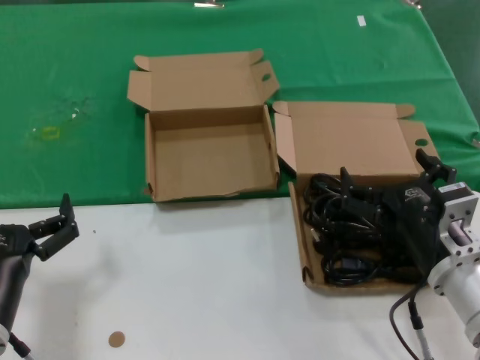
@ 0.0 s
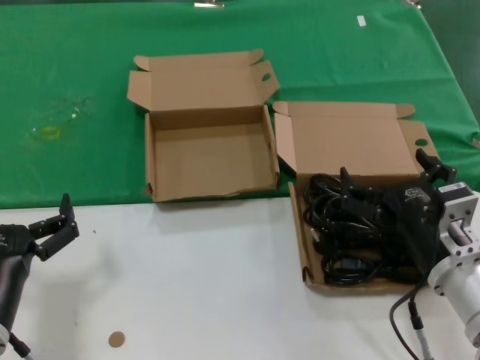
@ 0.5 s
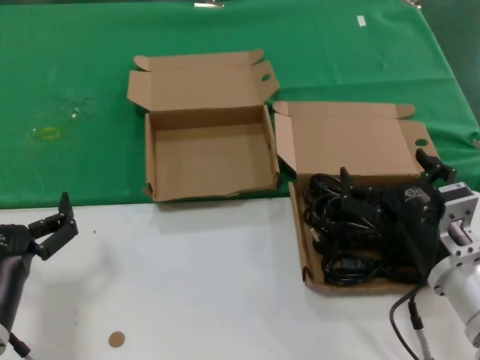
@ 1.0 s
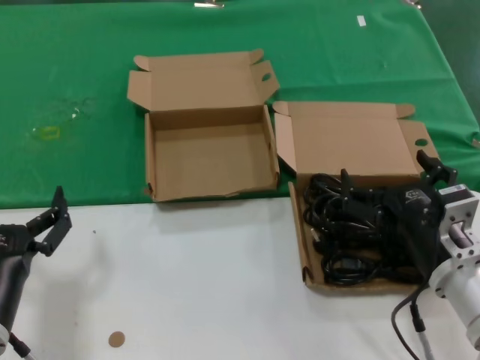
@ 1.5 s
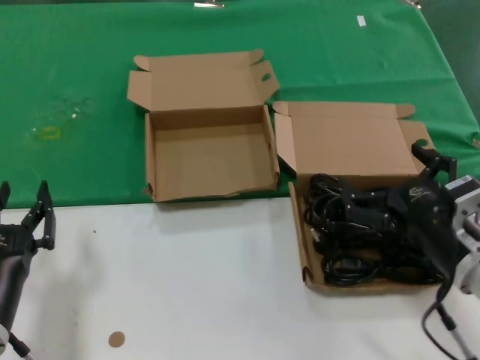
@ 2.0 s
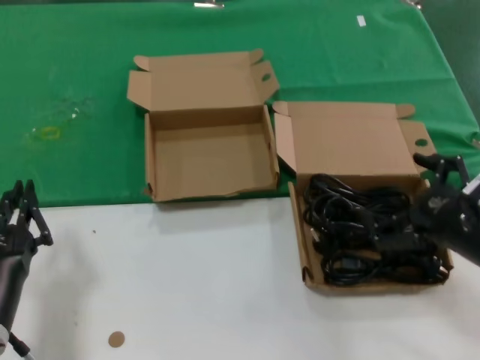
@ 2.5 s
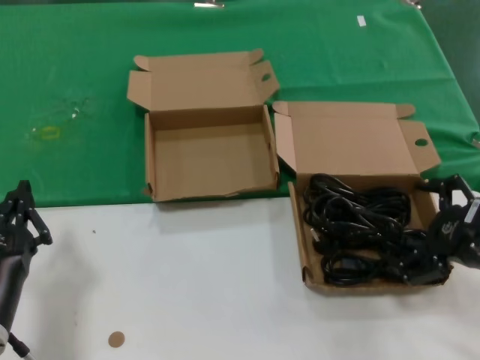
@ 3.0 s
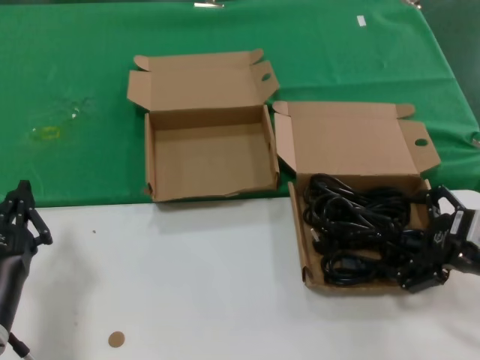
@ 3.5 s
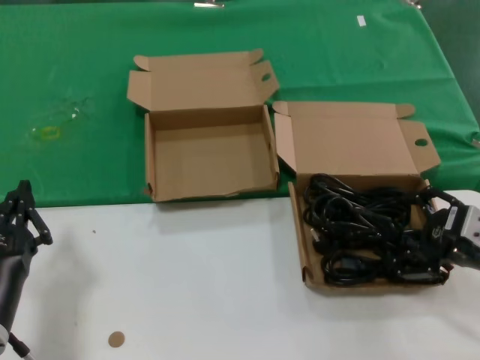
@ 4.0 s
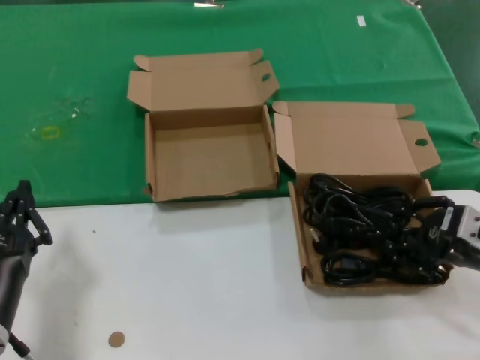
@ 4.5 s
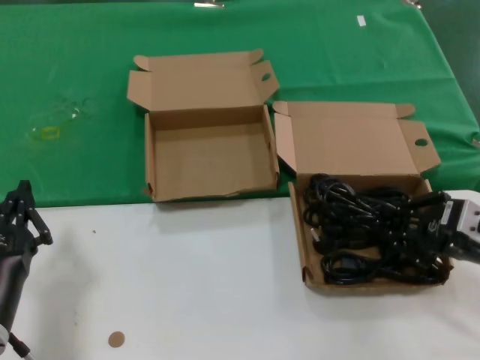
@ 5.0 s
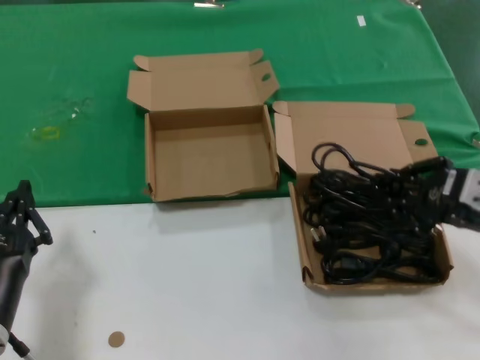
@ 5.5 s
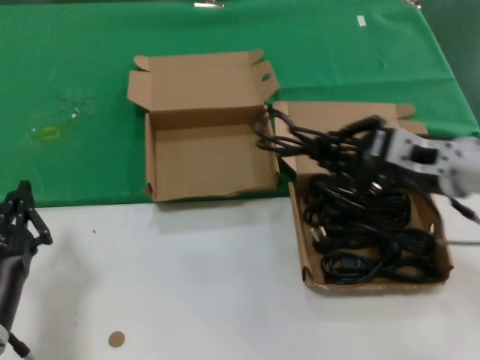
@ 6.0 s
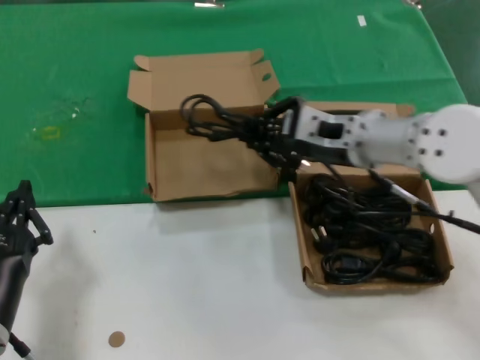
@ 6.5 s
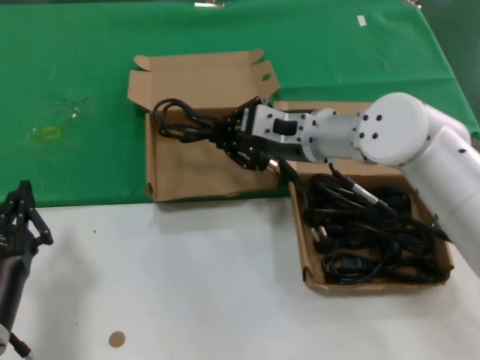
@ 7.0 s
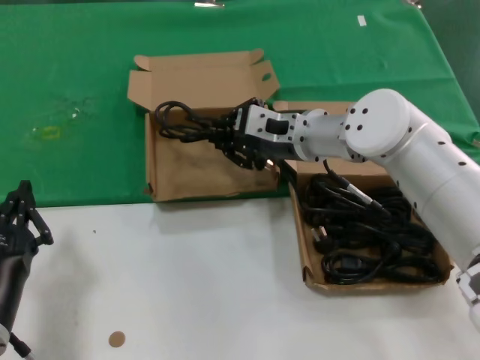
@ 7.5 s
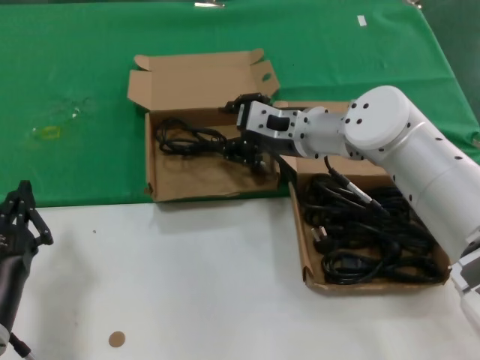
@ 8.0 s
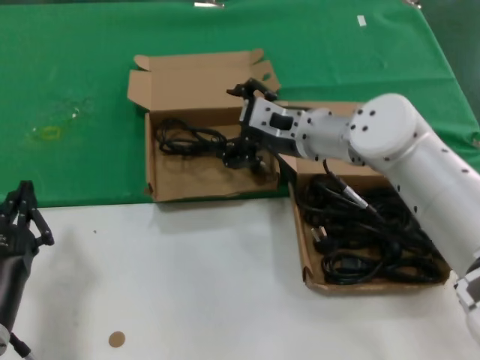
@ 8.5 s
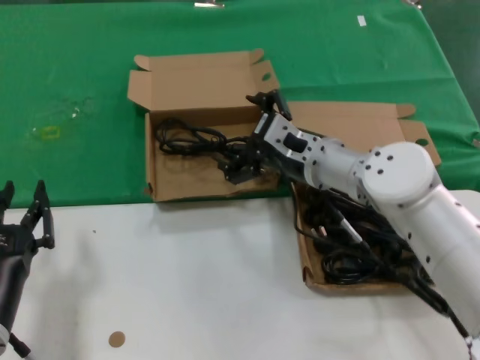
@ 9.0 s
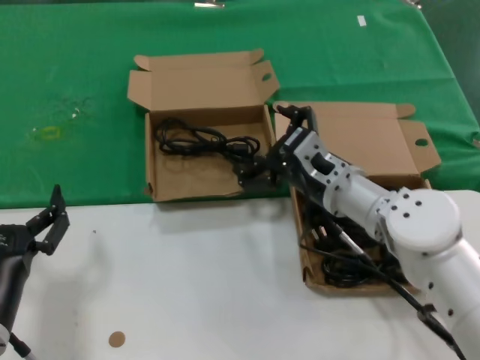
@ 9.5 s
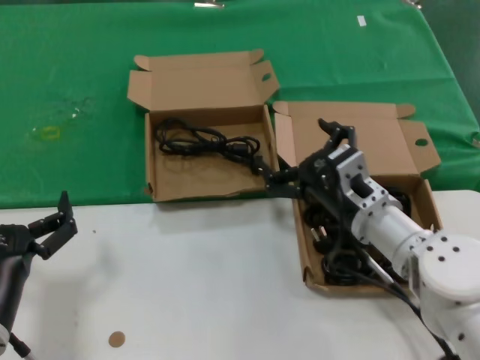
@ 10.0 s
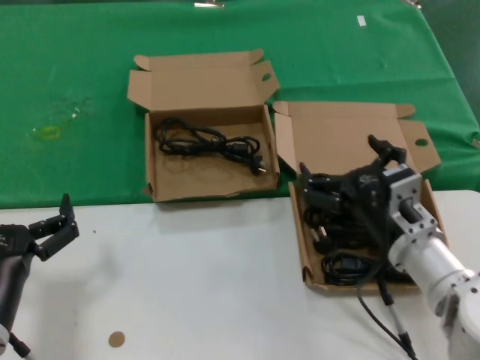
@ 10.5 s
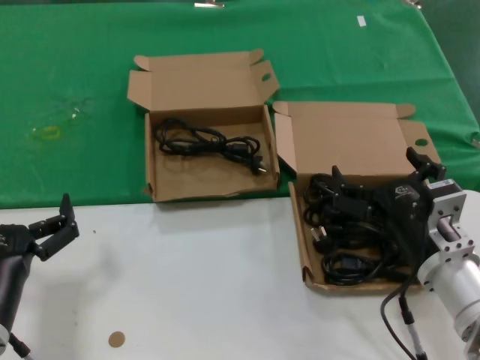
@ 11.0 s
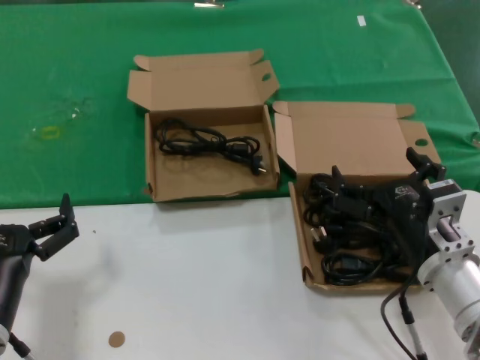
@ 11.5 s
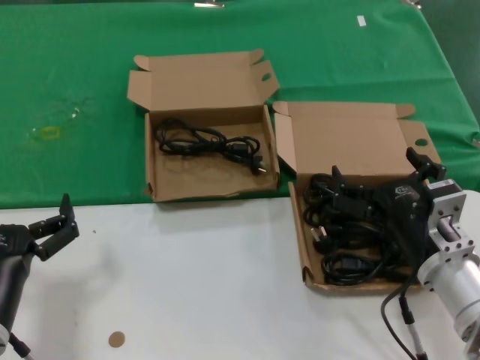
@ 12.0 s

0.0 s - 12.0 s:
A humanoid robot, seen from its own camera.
Task of the whole recording: take the parts from the box containing them and put them into an empty box.
Step, 0.0 s - 4.5 s: Grasp the data cable.
Step, 5.0 s - 8.0 s: Place the data cable in the another box.
0.0 s - 2.0 s: The hands move only a little.
2.0 s - 4.0 s: The right hand goes about 10 cm to the right.
4.0 s - 6.0 s: The right hand shifts some 15 cm upward, to the left and forward.
6.0 s - 8.0 s: The right hand heads to the left and forward, covering roughly 20 cm.
8.0 s - 10.0 s: The right hand moves backward, downward and to the right, approximately 15 cm.
10.0 s - 12.0 s: The right hand shifts some 10 cm backward.

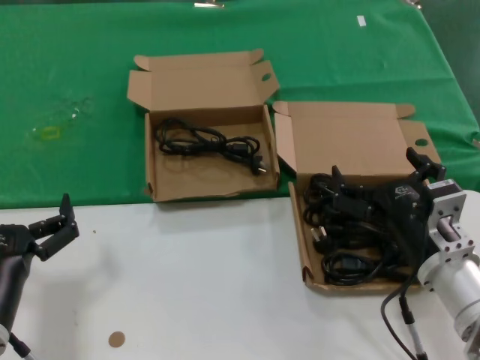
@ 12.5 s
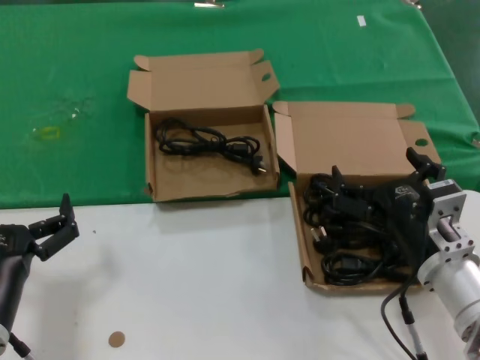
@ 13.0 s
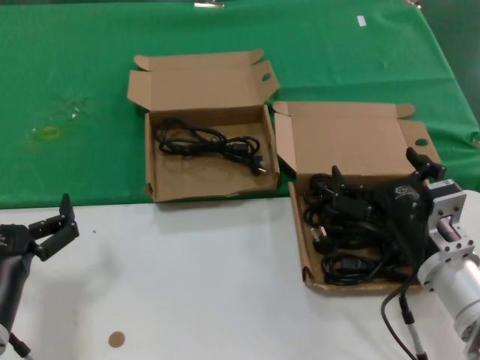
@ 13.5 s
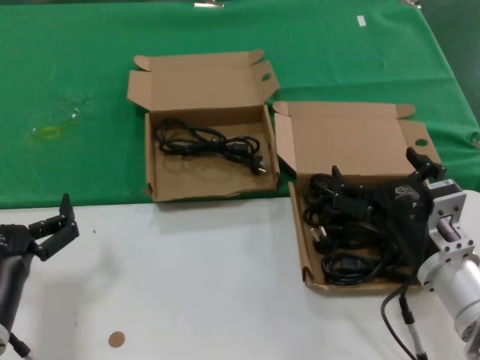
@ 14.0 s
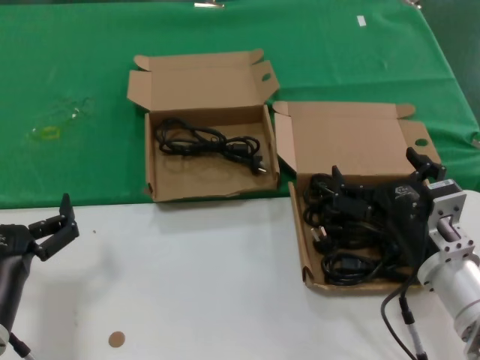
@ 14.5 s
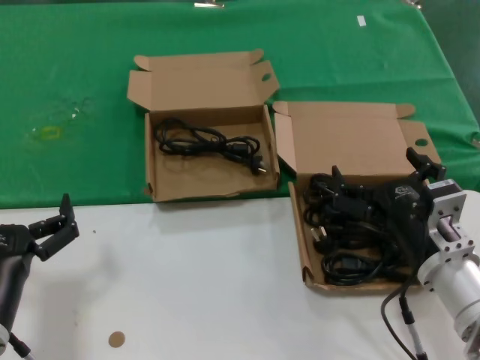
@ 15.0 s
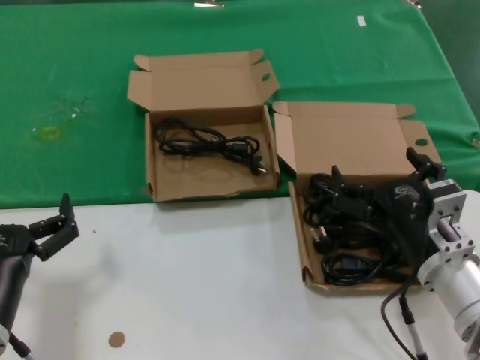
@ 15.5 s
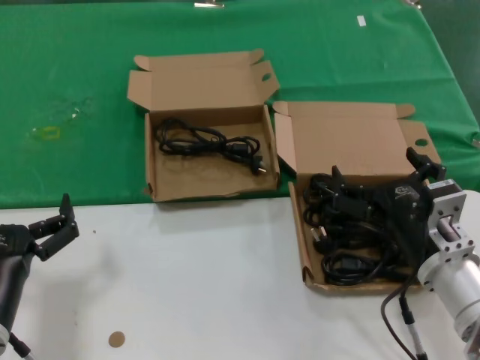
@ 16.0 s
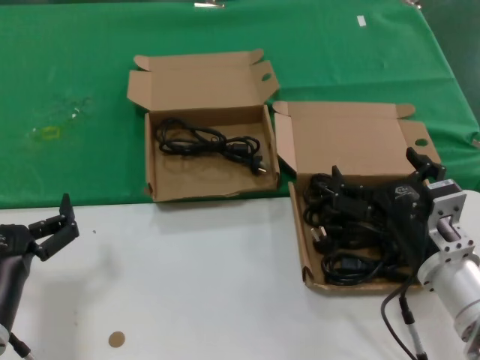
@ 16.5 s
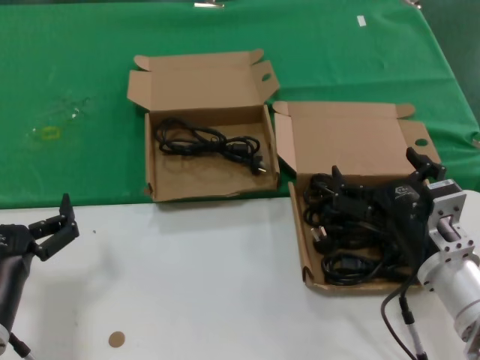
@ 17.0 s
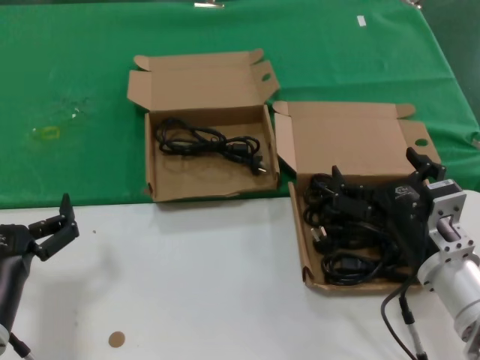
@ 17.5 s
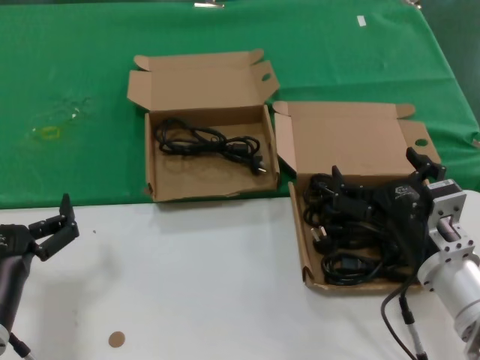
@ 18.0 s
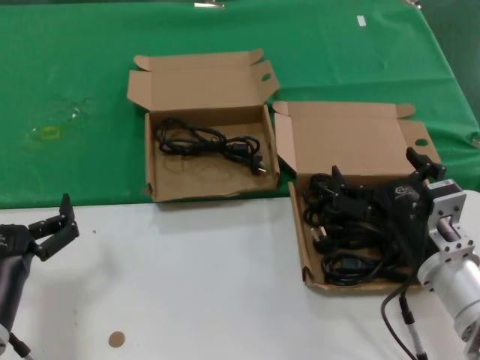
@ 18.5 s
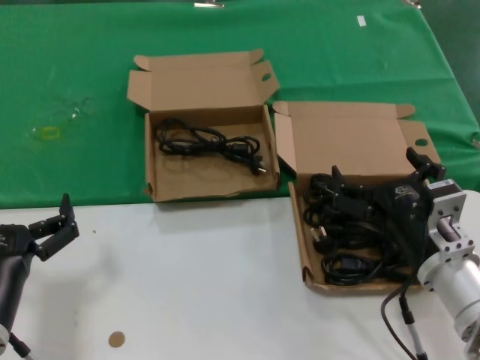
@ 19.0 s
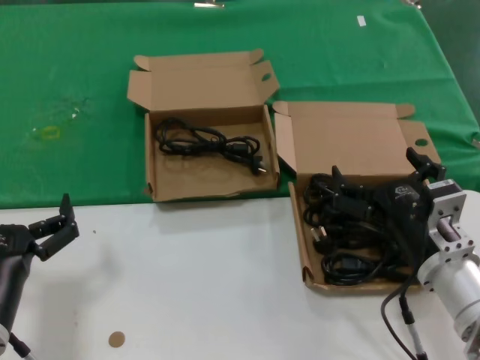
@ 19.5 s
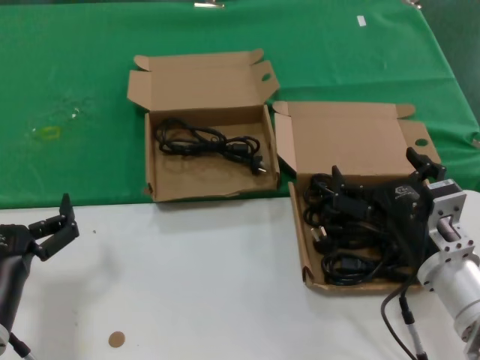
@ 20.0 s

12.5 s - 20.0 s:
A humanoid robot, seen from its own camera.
Task of the whole recording: take the parts from the box containing them and put them into an empty box.
12.5 s - 20.0 s: Both hands stay about where they are.

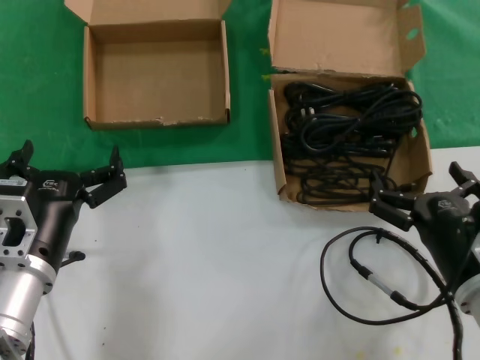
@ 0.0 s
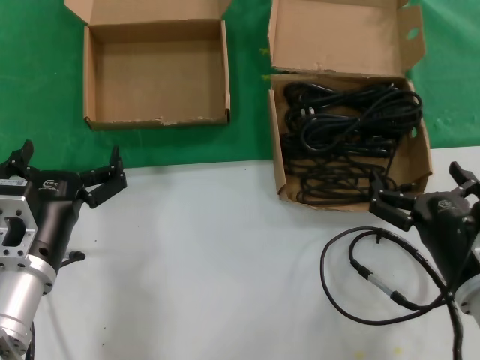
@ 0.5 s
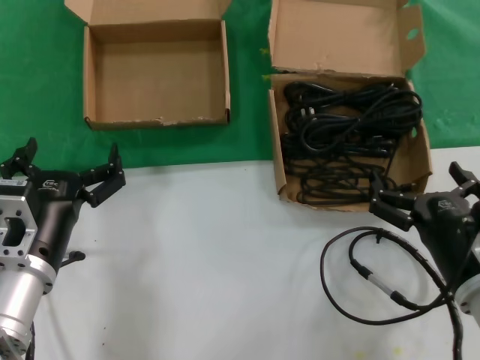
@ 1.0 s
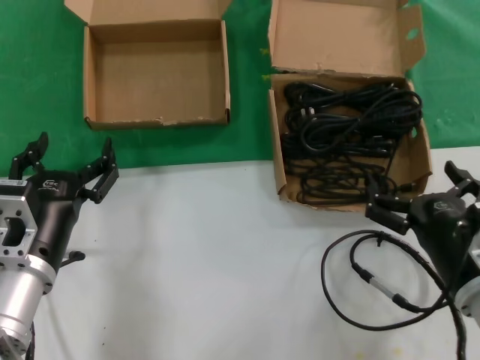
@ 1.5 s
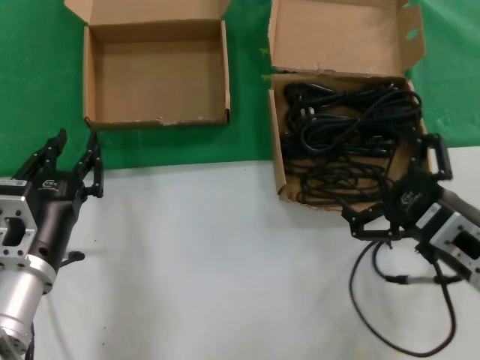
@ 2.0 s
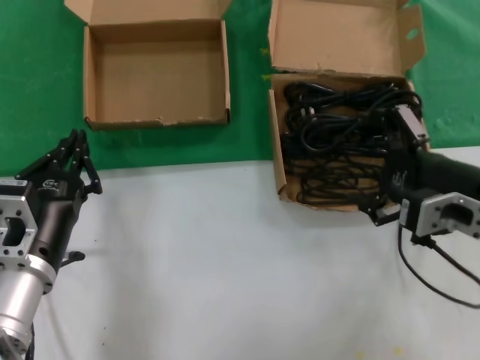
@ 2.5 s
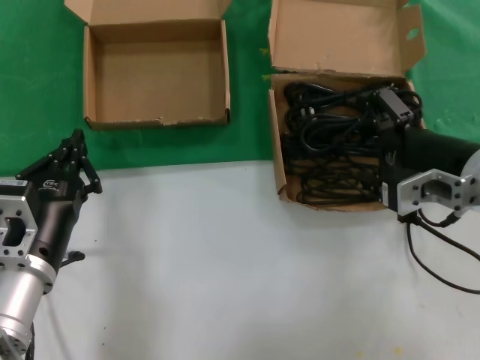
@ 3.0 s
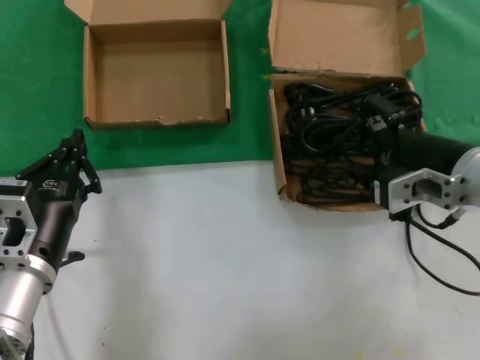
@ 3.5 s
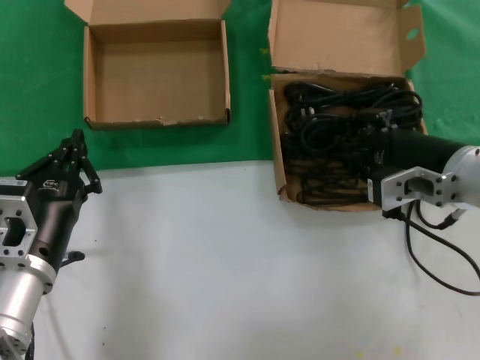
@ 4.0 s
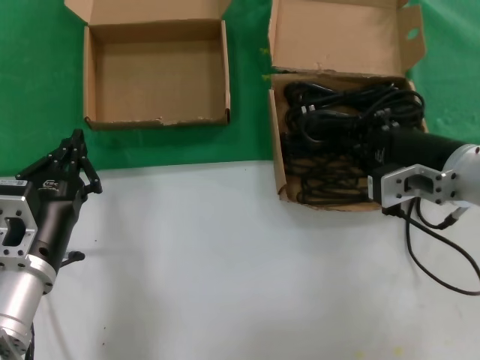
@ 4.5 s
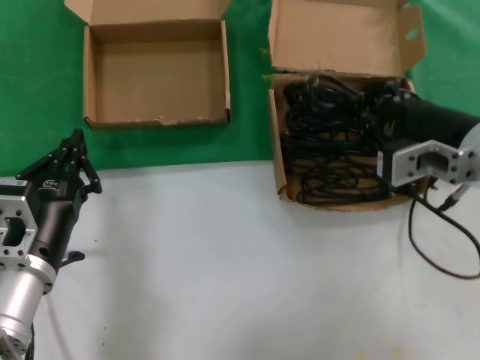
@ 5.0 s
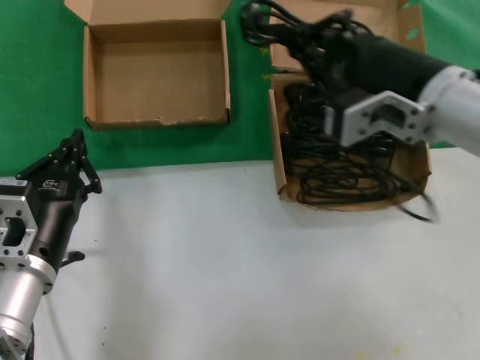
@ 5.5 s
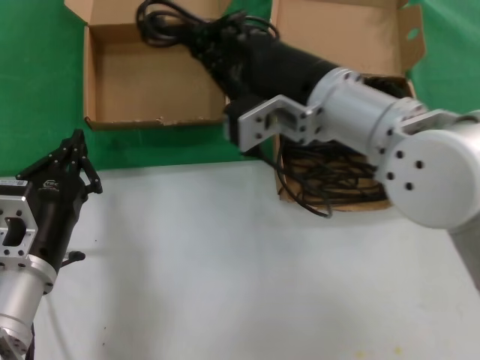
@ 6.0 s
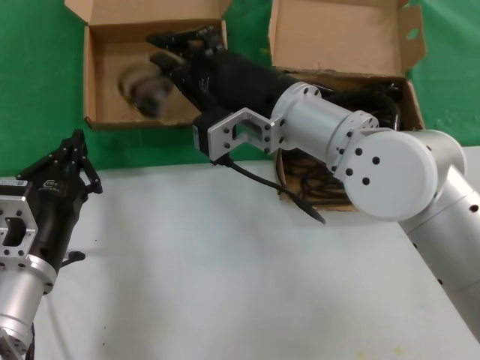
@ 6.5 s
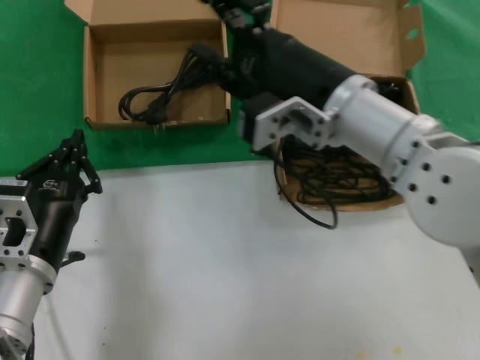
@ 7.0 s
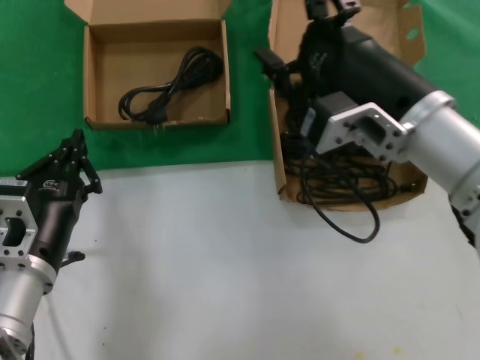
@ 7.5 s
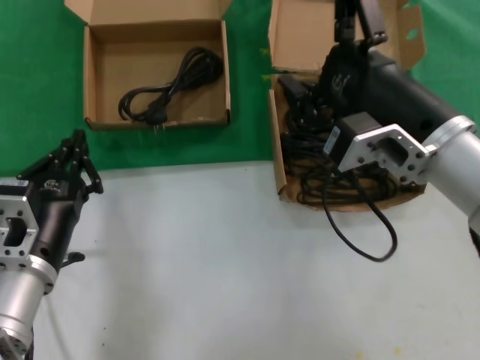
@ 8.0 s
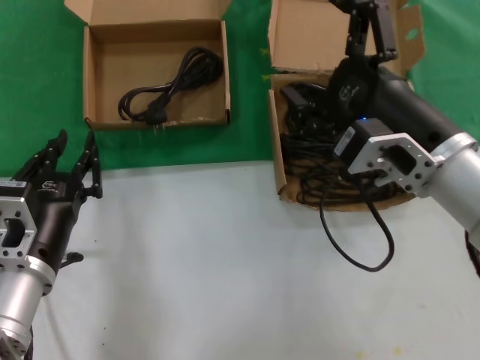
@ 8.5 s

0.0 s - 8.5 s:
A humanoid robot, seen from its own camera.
Task of the whole recording: take the parts from the box containing them and put them into an empty box.
Step, 0.0 s - 4.0 s: Grasp the data cable.
Step, 4.5 s - 6.5 s: Place the data cable in the another box.
0.0 s - 2.0 s: The right hand heads upward, covering some 5 cm.
2.0 s - 4.0 s: The right hand moves forward and upward, approximately 10 cm.
4.0 s - 6.5 s: The right hand travels to the left by roughly 20 cm.
6.5 s - 8.5 s: The right hand heads to the right and backward, covering approximately 15 cm.
